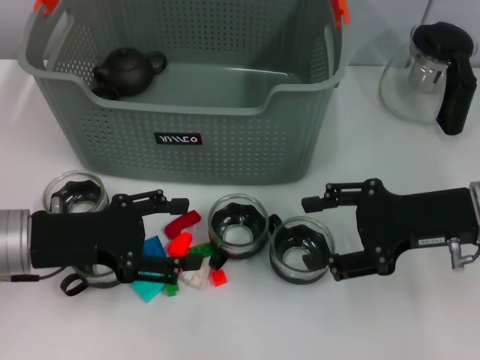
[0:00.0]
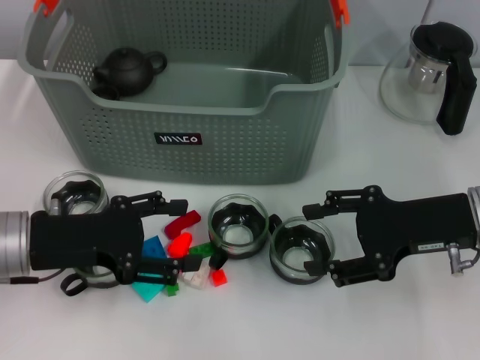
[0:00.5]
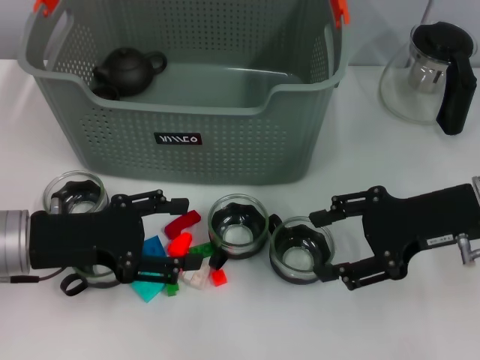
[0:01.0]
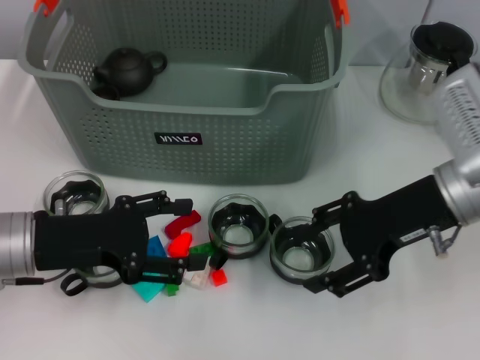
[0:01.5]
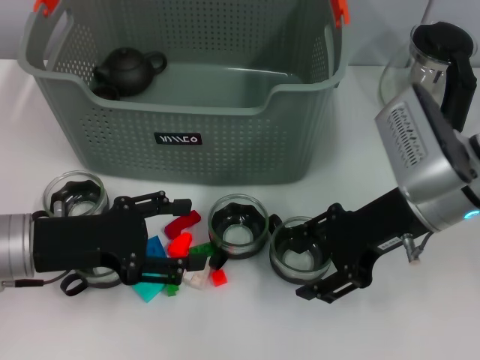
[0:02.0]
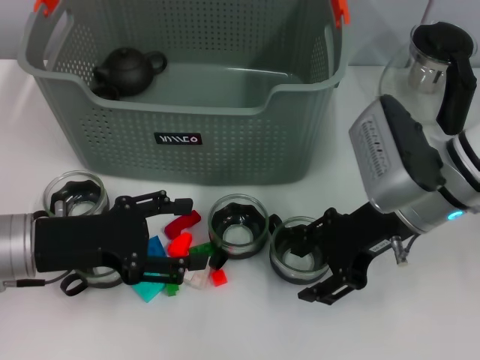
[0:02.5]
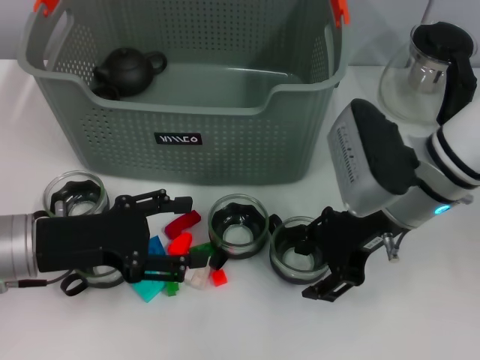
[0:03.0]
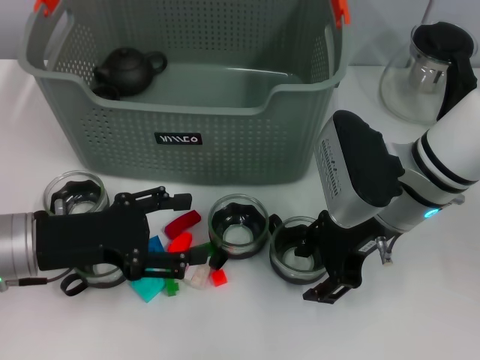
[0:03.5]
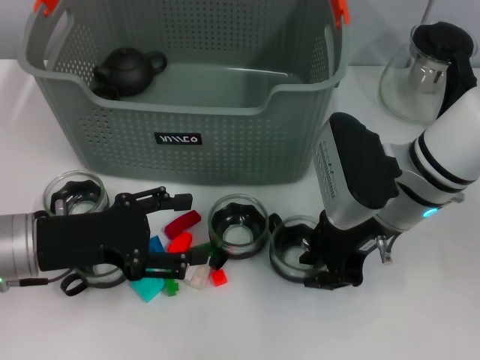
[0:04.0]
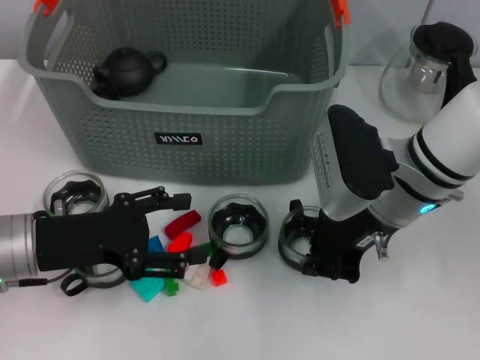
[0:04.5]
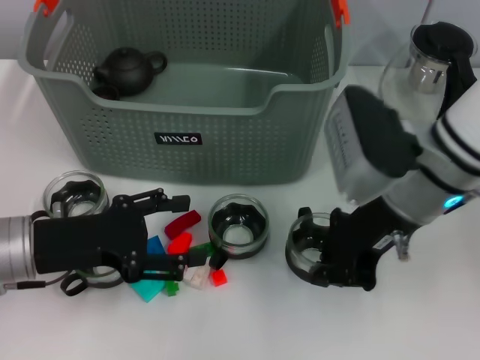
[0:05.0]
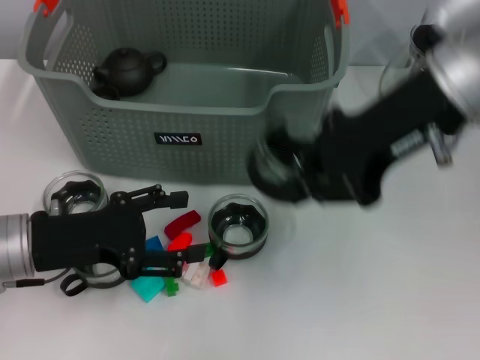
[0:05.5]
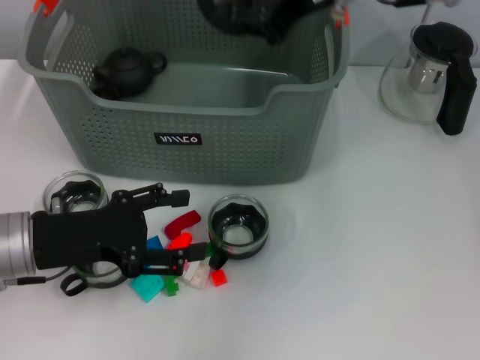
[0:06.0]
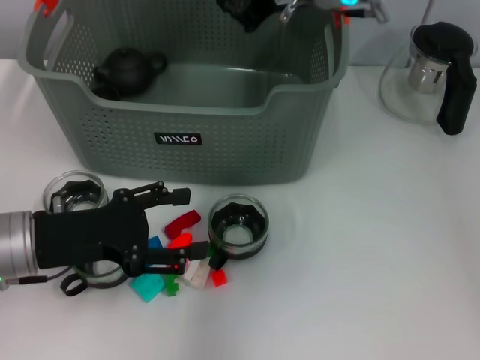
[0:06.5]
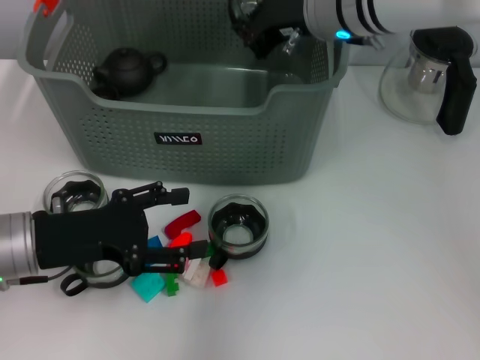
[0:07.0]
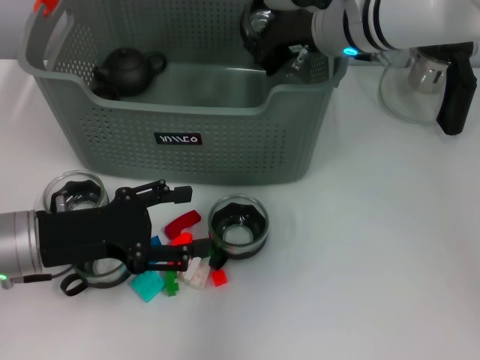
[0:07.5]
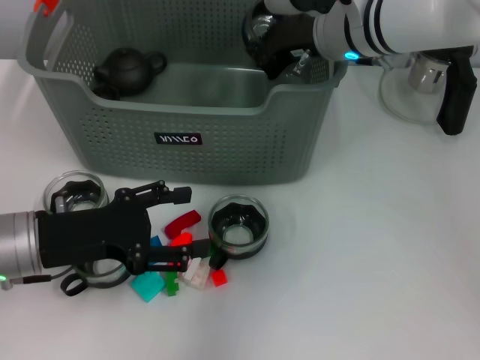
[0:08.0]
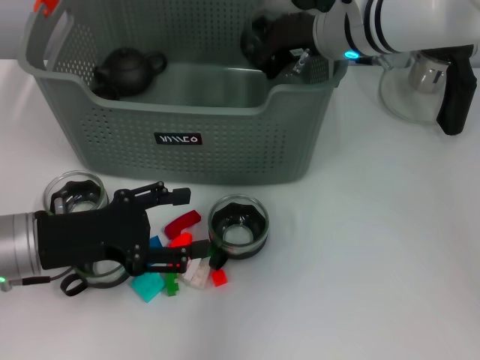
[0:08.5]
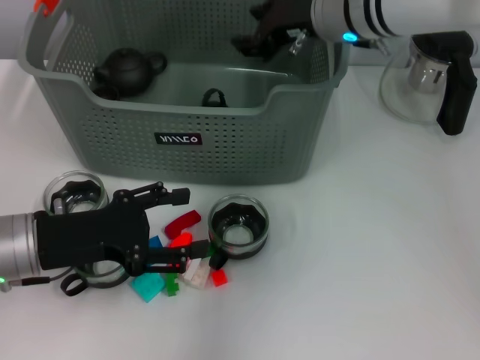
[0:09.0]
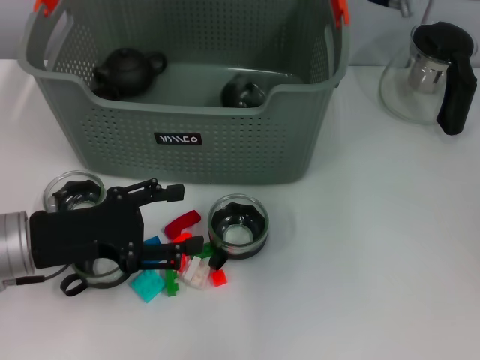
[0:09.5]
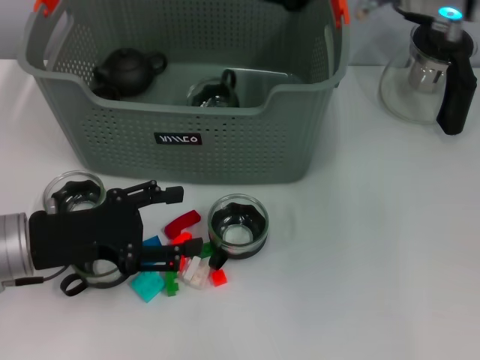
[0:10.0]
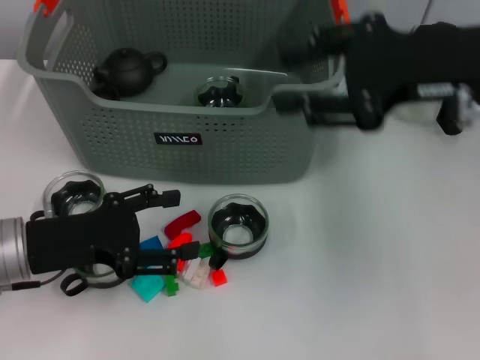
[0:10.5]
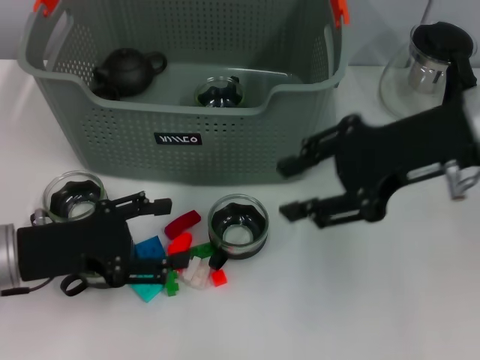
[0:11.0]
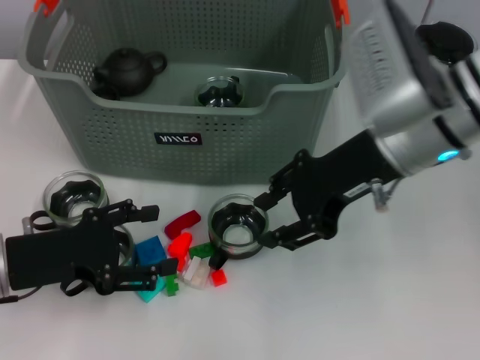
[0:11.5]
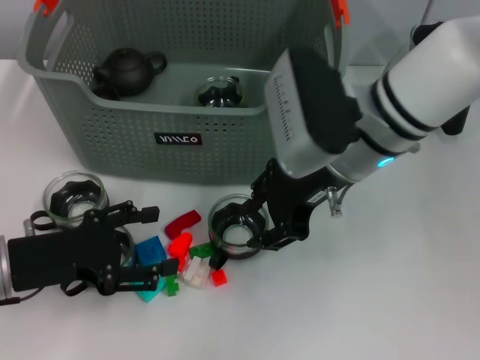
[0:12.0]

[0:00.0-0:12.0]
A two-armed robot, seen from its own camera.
Task of the whole recording: pick up the teacup on the table and place it into the storage bin, pick up the block on the table and place it into the storage bin.
Step, 0:00.0 to 0:04.5: Grasp the cup with right gripper.
Step, 0:05.0 to 0:09.0: Place the cup in the storage box with right gripper.
0:00.0 to 0:02.0: The right gripper is displaced to the left by roughly 5 cm.
0:02.0 to 0:04.0: The grippers make only small movements.
0:04.0 to 0:06.0: The right gripper is displaced upward by roughly 20 cm, and closes its fingers.
0:06.0 to 0:08.0: The right gripper shifts some 15 cm downward and forward.
0:08.0 to 0:10.0: The right gripper goes roughly 10 cm upward, backward and to the right, and opens.
0:10.0 to 0:12.0: The right gripper moves downward and to the left, about 10 cm.

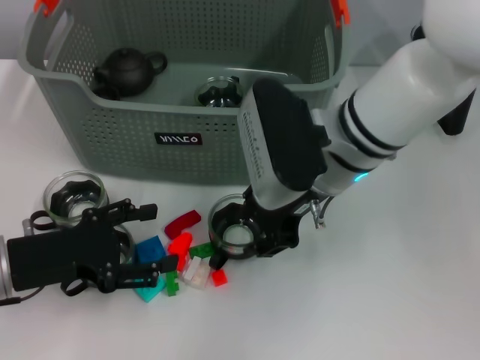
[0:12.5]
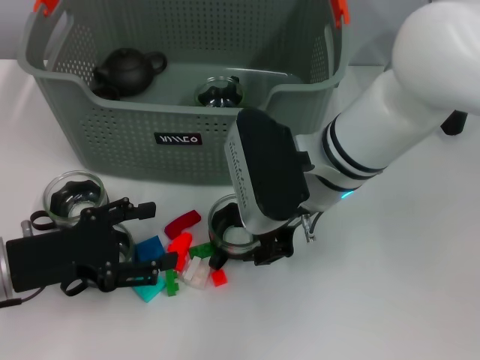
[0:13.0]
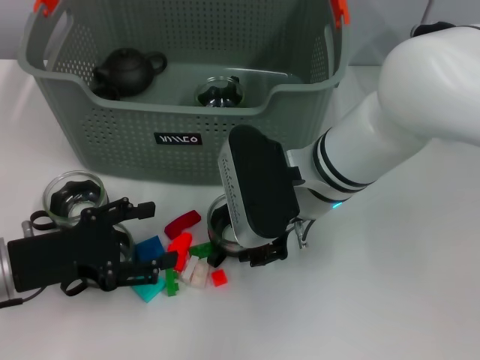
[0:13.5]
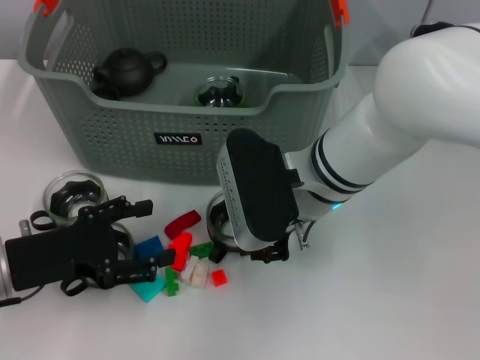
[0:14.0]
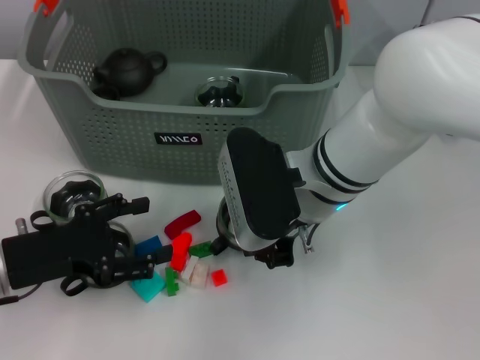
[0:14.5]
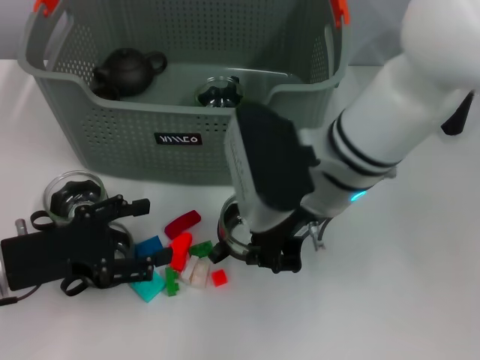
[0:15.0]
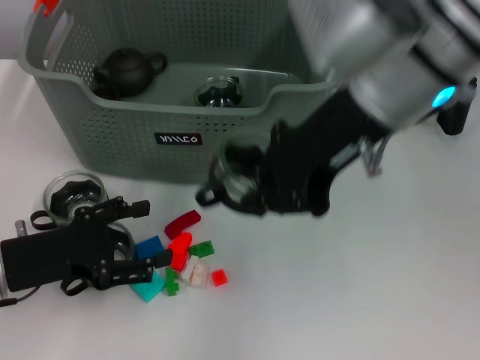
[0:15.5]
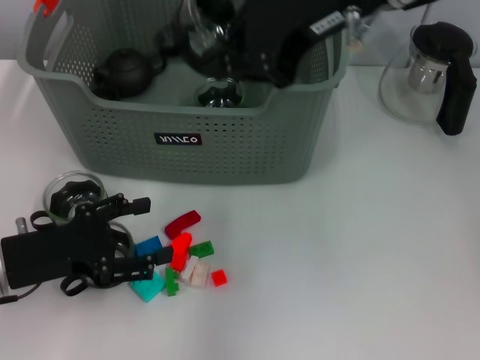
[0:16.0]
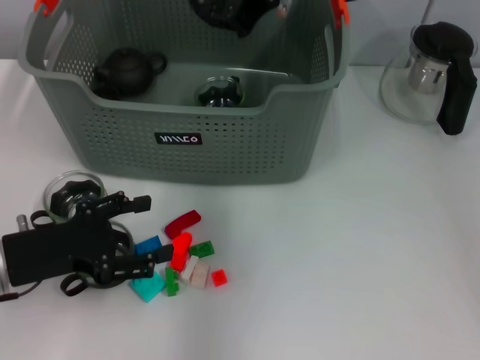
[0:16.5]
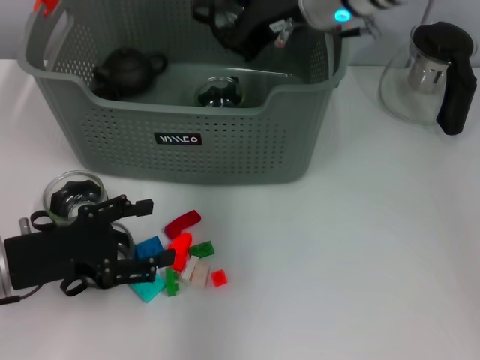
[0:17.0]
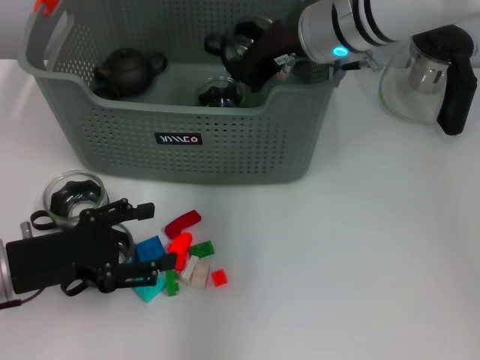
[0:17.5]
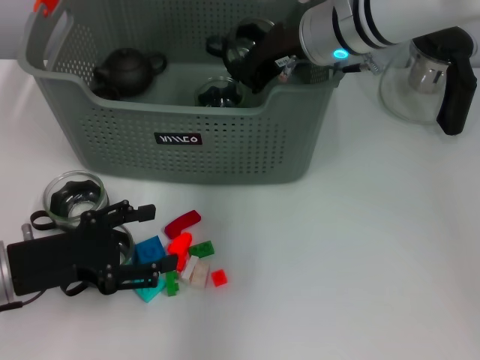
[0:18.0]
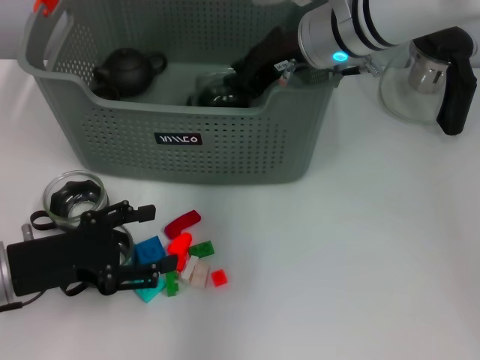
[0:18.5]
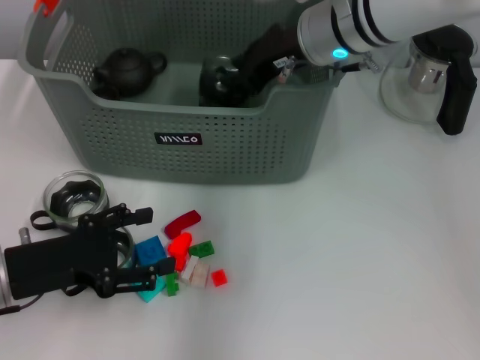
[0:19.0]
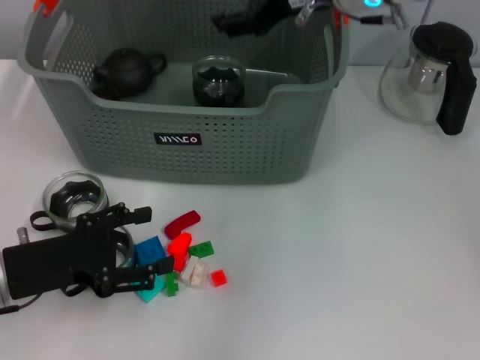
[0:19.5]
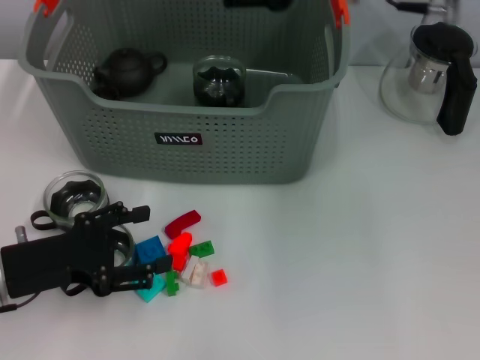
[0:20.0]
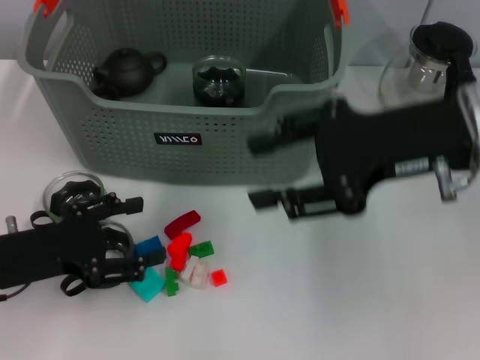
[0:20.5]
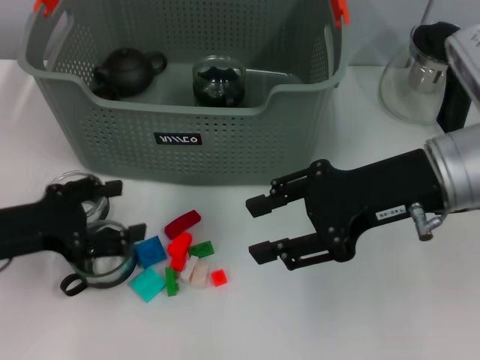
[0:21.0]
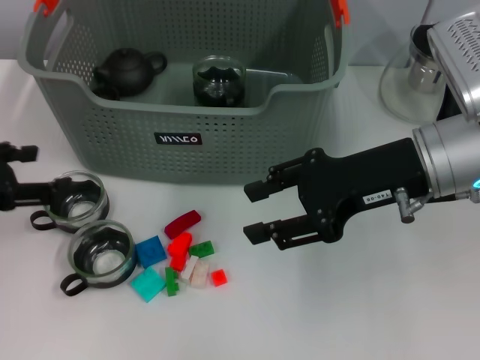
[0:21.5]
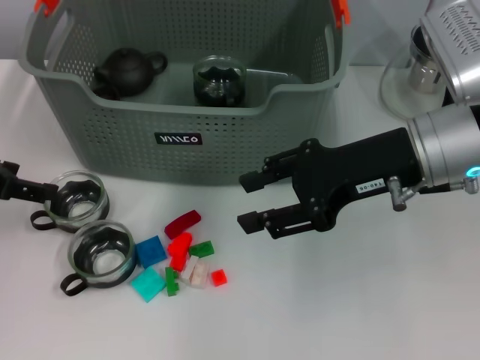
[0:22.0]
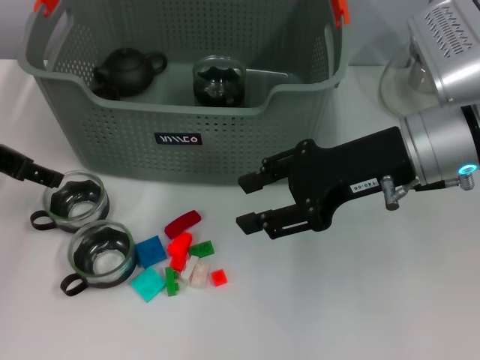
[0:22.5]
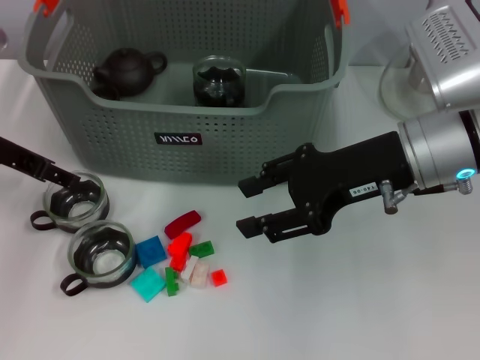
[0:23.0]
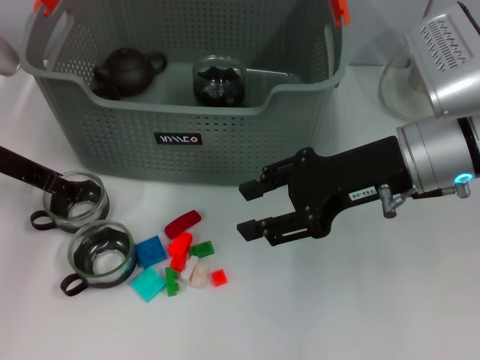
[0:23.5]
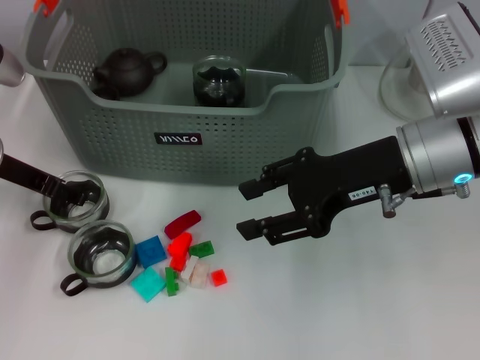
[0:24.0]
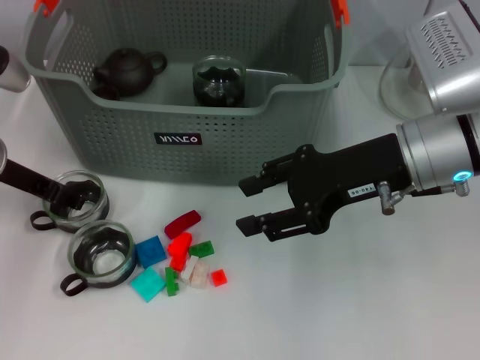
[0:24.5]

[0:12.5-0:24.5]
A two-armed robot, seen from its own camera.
Task of the whole recording: pick up the teacup on the table and place it into the storage bin, pick up the block on the table and place it into the storage bin.
Step, 0:12.5 to 0:19.0: Place the cup in the storage box with right gripper.
0:12.5 to 0:14.5: The right gripper closes its fingers.
0:14.5 to 0:16.5: The right gripper heads upward and forward, covering about 20 cm.
0:16.5 to 0:18.5: The right gripper is displaced downward by approximately 10 cm.
0:18.5 to 0:20.5: The right gripper goes roughly 15 cm backward and to the right, and opens up.
0:20.5 to 0:22.5: The left gripper goes roughly 15 cm upward and forward. The right gripper changes place by approximately 5 cm.
0:22.5 to 0:24.5: The left gripper heads downward, covering approximately 5 cm.

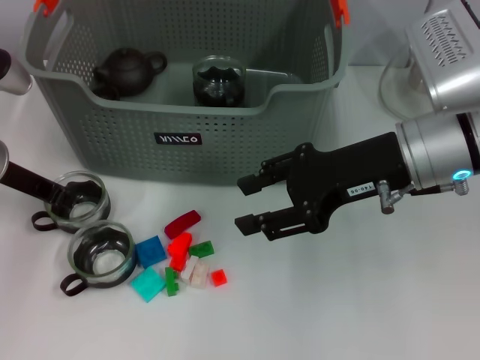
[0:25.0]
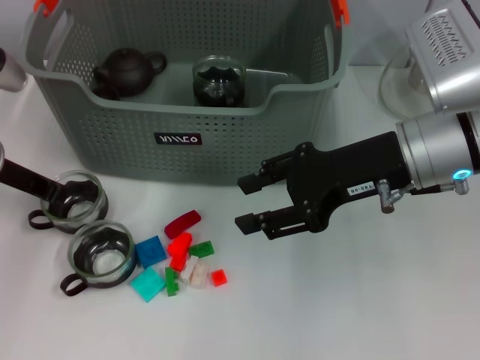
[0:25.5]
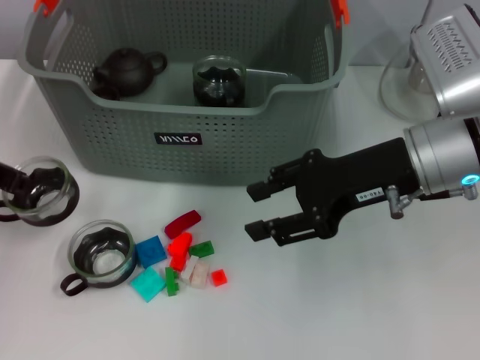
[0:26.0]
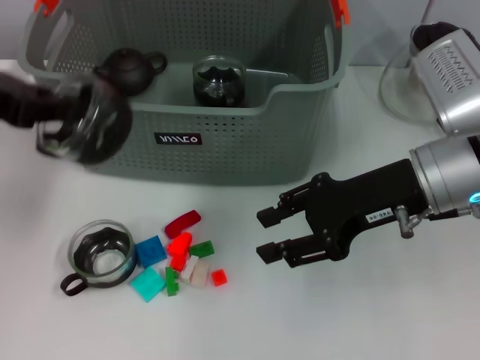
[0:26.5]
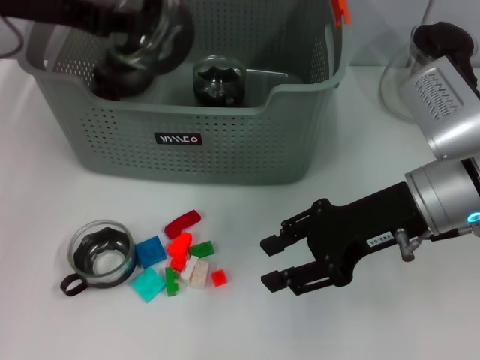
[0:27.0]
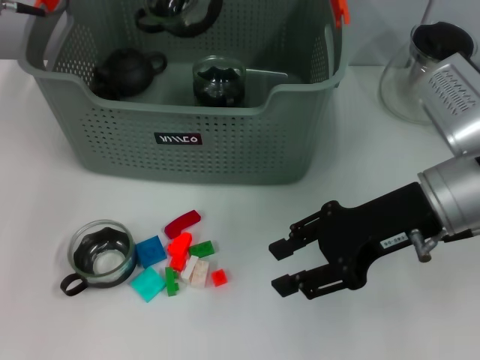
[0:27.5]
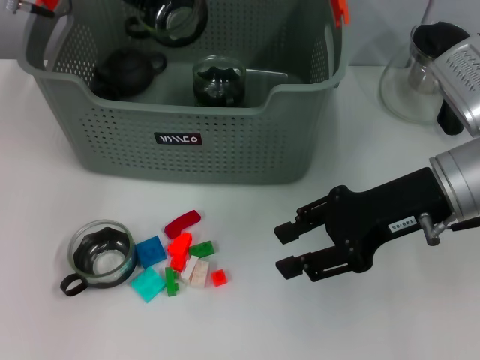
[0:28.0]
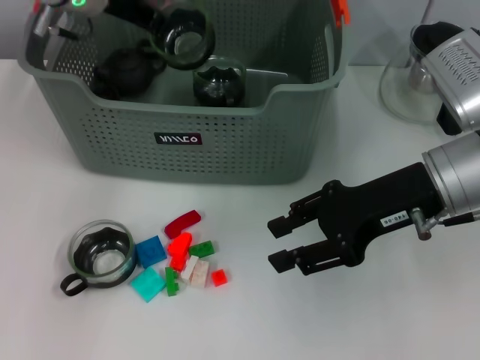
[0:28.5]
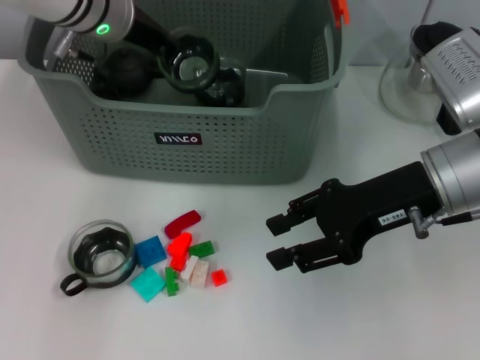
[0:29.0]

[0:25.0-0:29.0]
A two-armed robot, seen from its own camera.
Task of the whole recording: pick up the teacup on the table and place it into the storage bin, pick up the block on the table and place it into the storage bin.
0:25.0 to 0:27.0: The left gripper is displaced upward by approximately 15 cm, and closes up.
0:27.0 to 0:29.0: The left gripper heads to the right, forward and downward, covering approximately 15 cm.
